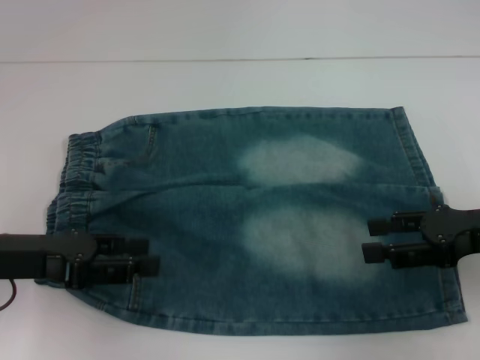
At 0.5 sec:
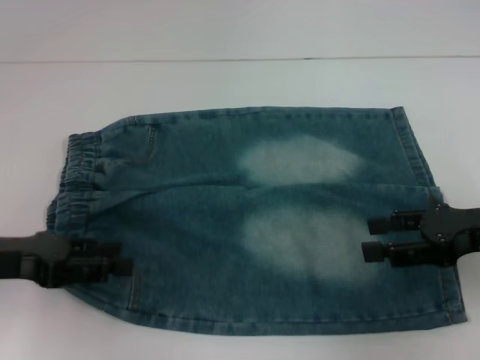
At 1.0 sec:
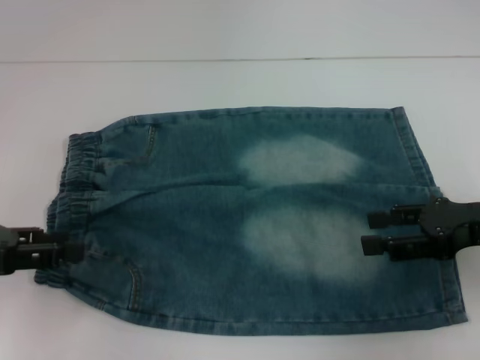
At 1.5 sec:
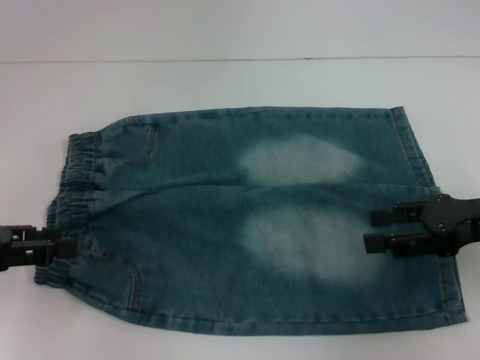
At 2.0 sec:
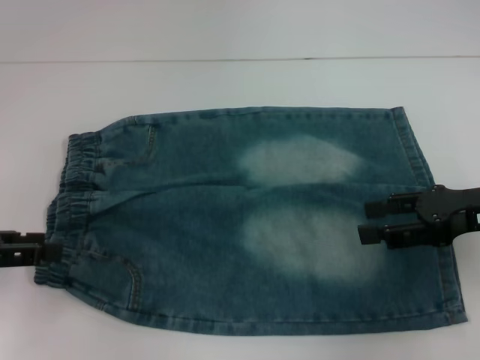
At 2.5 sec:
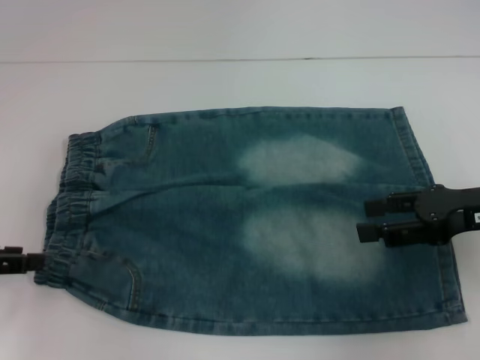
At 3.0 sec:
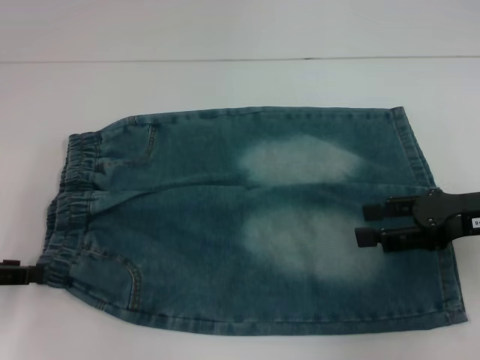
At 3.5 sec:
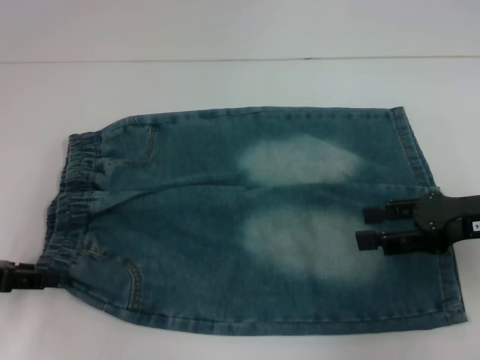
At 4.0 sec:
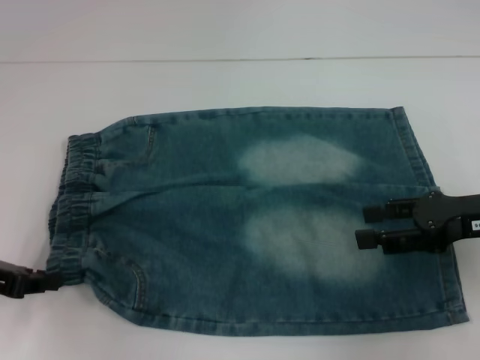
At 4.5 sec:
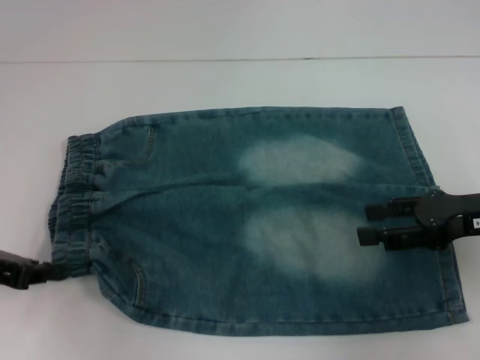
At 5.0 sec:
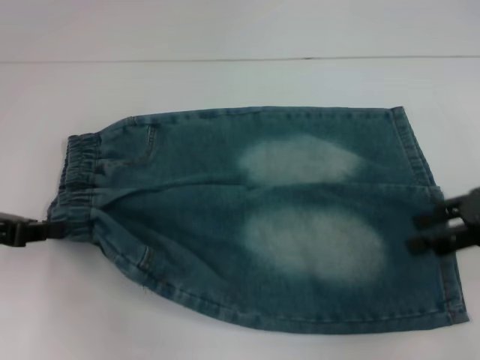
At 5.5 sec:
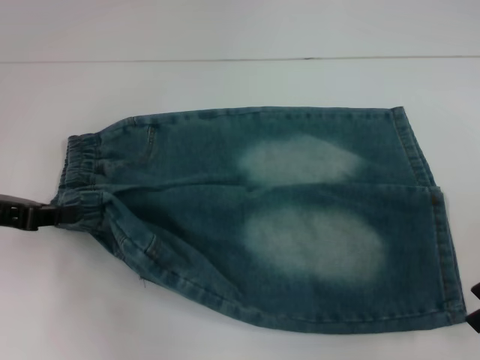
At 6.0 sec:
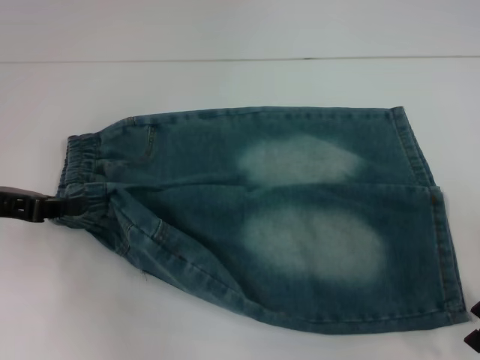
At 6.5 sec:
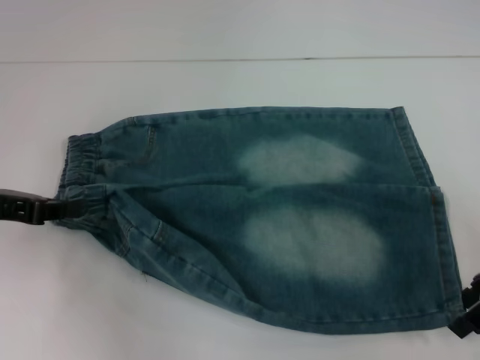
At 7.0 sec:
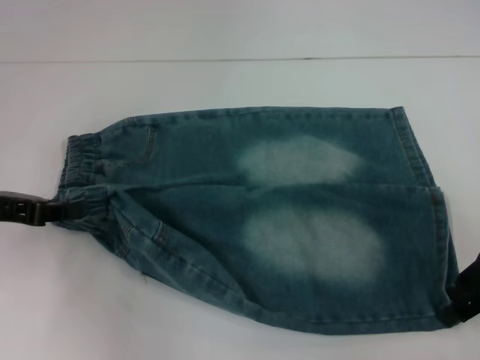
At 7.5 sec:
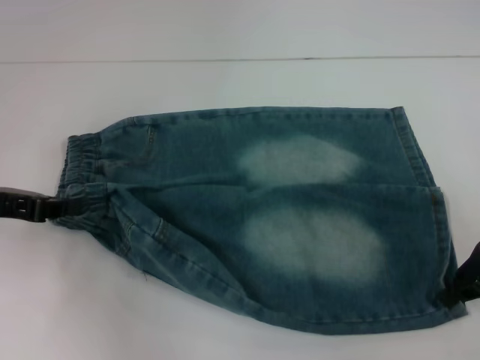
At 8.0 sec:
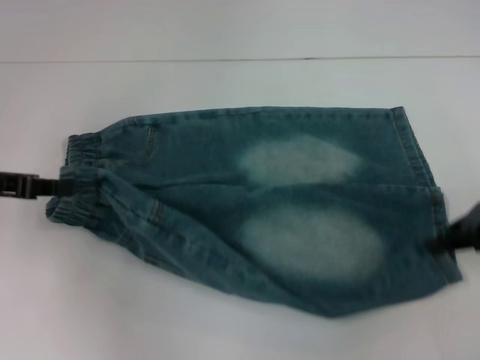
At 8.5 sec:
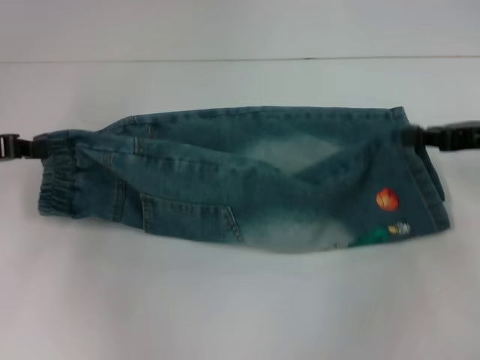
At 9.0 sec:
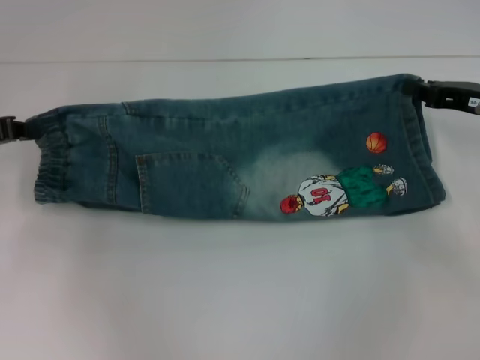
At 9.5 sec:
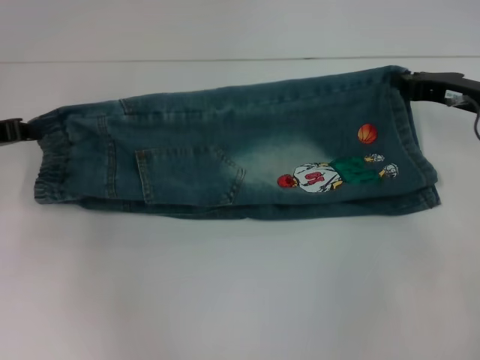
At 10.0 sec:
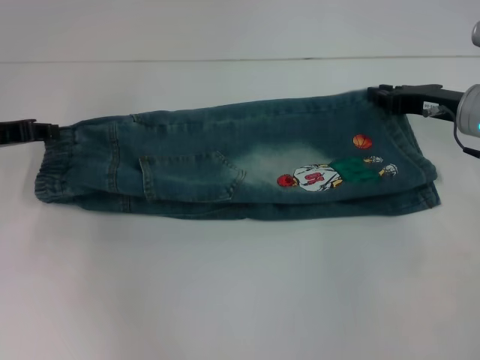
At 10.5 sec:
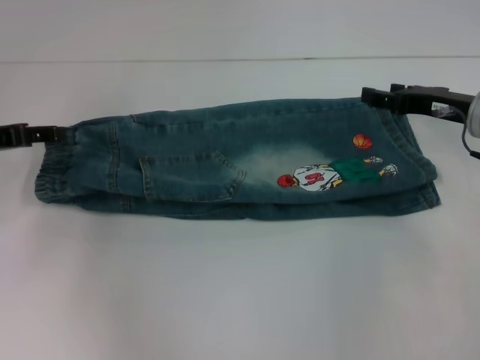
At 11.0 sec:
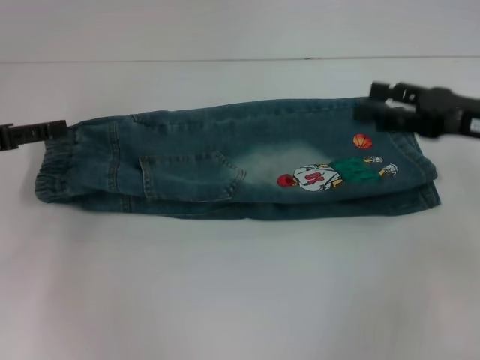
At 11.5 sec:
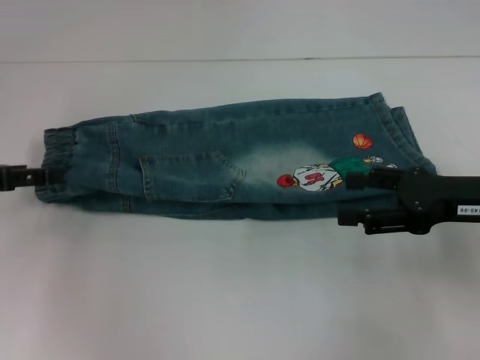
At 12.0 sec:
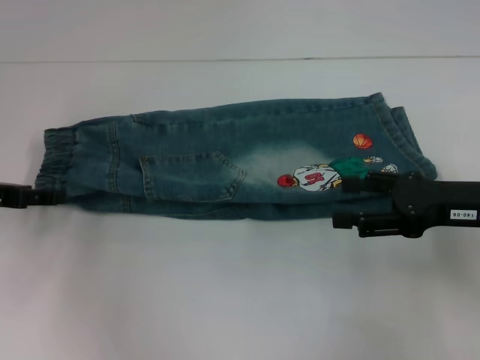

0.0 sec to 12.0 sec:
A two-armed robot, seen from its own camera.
Step, 0.0 sec to 4.0 sec: Hold the lower left waistband with your left hand.
Step, 4.5 sec to 7.5 sec: Grab the lower right pant leg with your right hand.
Step, 8.0 sec to 9.5 sec: Fold upward with your left hand.
0.0 sec to 2.0 sec: The left gripper moves to the left, some 5 cm.
2.0 sec to 4.0 sec: The grippers move only a little.
4.0 sec to 6.0 sec: The left gripper shifts by about 5 cm, and closes its fingers.
6.0 sec to 8.0 sec: The right gripper closes up.
8.0 sec to 10.0 sec: The left gripper shifts by roughly 5 cm. The right gripper travels forward by about 5 cm.
10.0 sec to 12.0 sec: The right gripper is displaced backward by approximately 10 cm, and opens; the left gripper opens up.

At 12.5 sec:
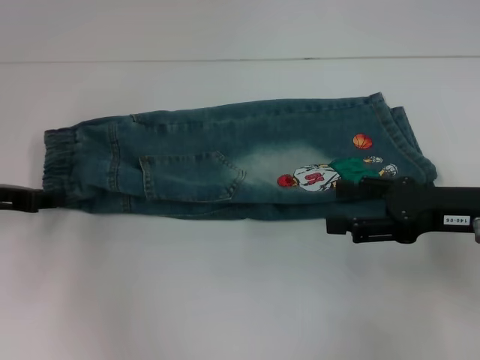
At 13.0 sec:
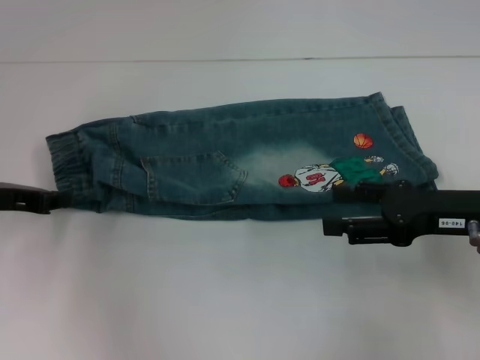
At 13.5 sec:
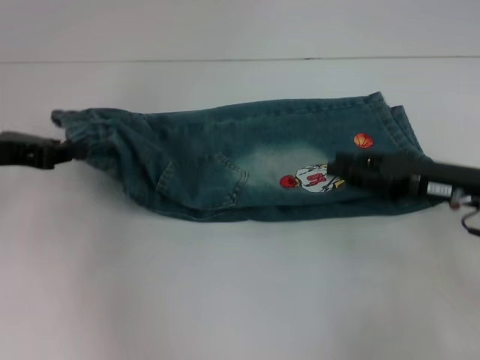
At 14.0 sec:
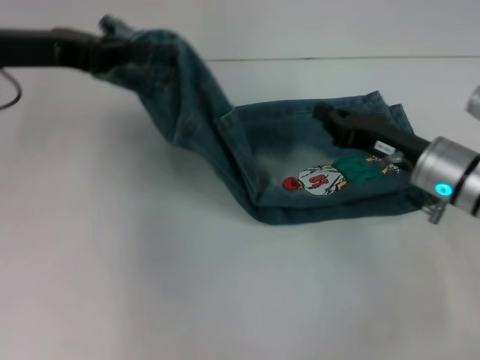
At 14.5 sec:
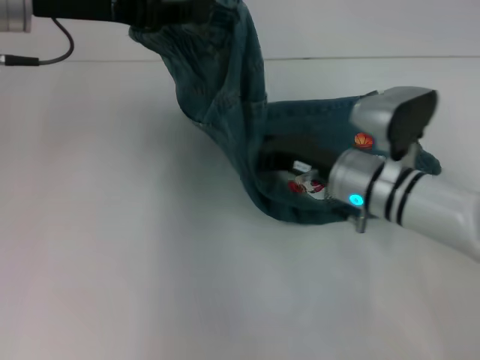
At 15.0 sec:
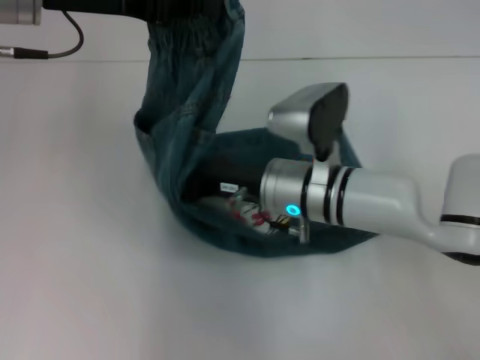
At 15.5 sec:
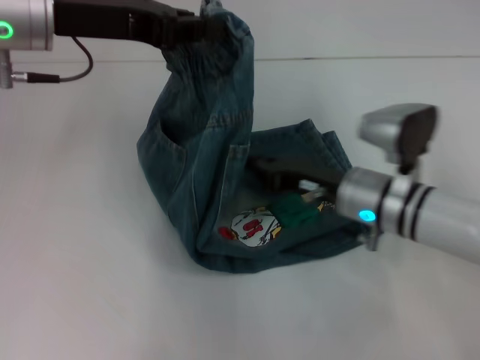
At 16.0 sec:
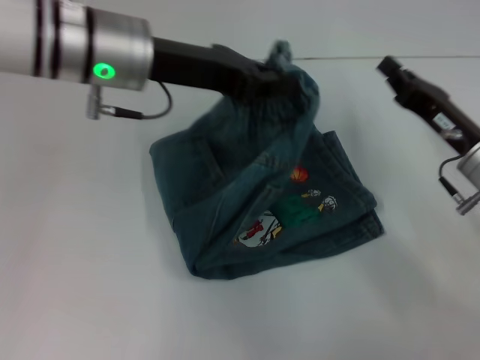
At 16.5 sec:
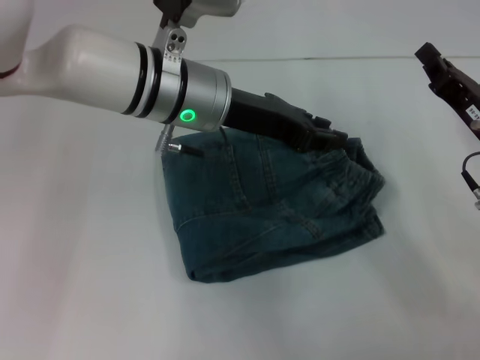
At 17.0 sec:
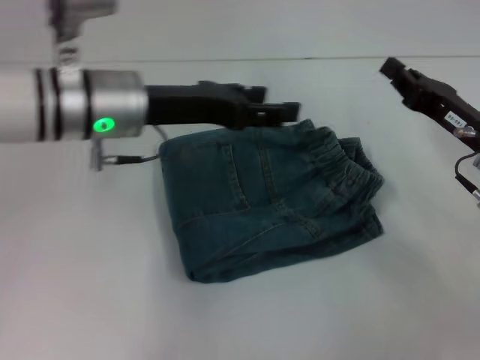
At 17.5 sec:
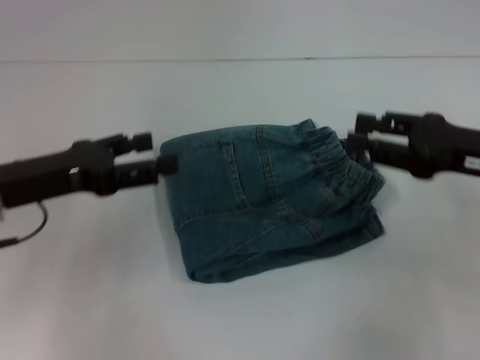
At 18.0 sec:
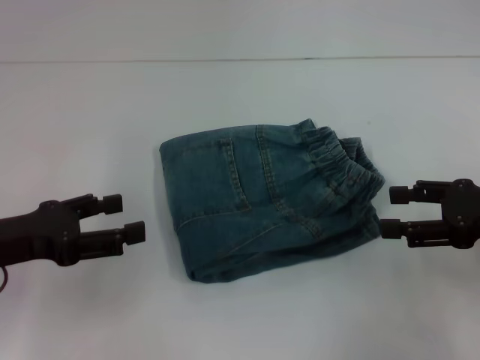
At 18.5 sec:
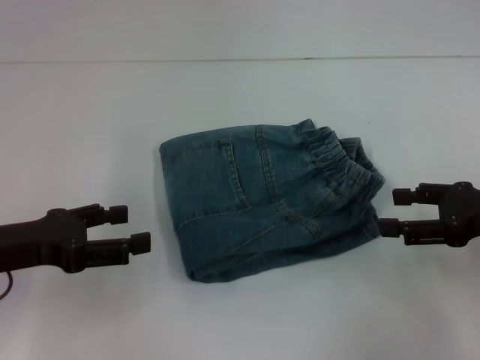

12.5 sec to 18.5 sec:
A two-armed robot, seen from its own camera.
Step, 13.5 sec to 15.0 sec: Press the middle of the pants with your right hand.
Step, 15.5 sec to 16.0 sec: Fold to the right with your left hand.
12.5 sec to 14.5 sec: The left gripper moves upward and to the right, about 20 cm, and closes up; the right gripper moves to the left and forward, some 15 cm, and closes up.
14.5 sec to 16.5 sec: The right gripper moves to the right, roughly 15 cm; the left gripper heads to the right and downward, covering about 15 cm.
16.5 sec to 18.5 sec: The left gripper is displaced to the left and backward by roughly 25 cm, and opens. The right gripper ends up approximately 10 cm from where it was, and opens.
